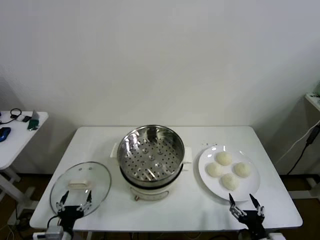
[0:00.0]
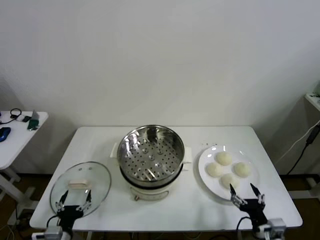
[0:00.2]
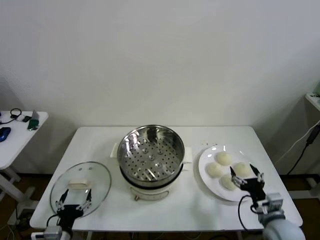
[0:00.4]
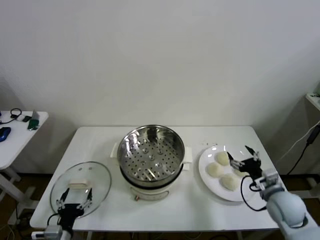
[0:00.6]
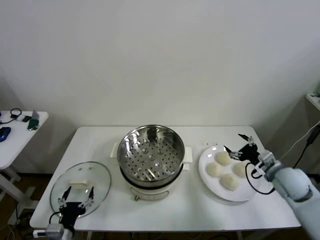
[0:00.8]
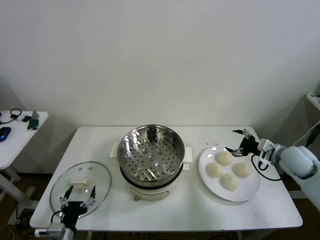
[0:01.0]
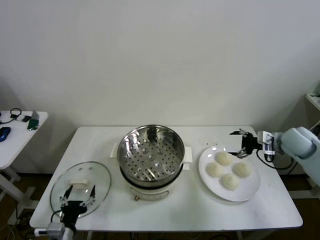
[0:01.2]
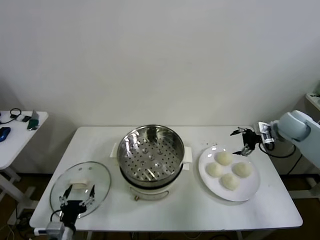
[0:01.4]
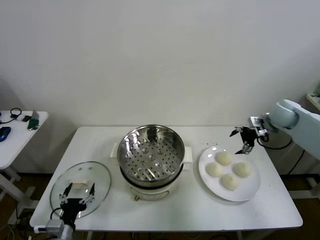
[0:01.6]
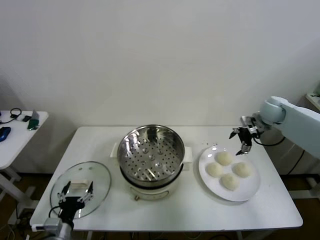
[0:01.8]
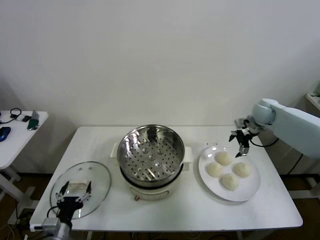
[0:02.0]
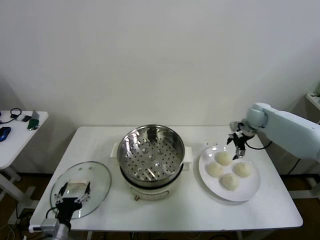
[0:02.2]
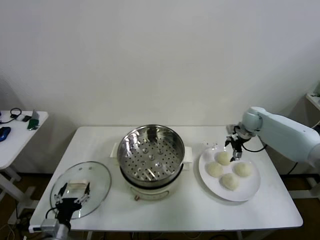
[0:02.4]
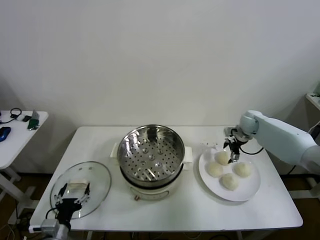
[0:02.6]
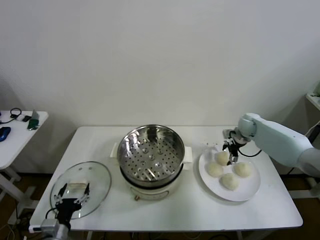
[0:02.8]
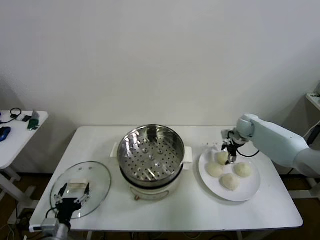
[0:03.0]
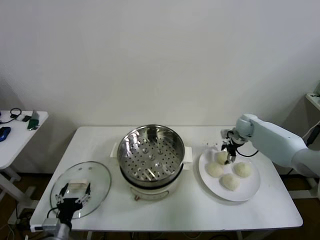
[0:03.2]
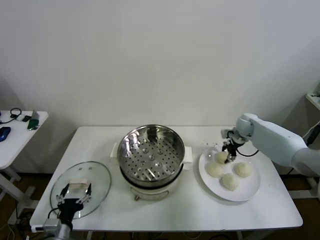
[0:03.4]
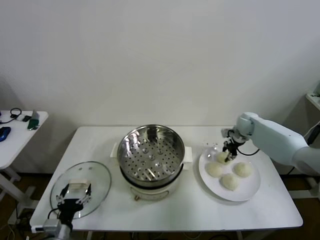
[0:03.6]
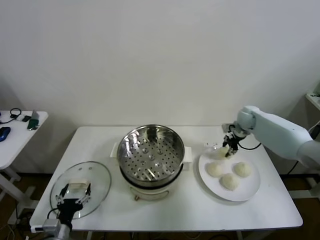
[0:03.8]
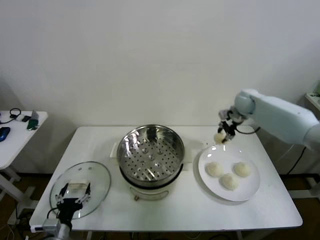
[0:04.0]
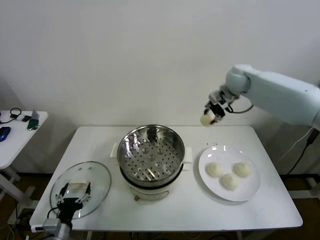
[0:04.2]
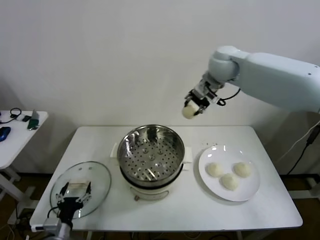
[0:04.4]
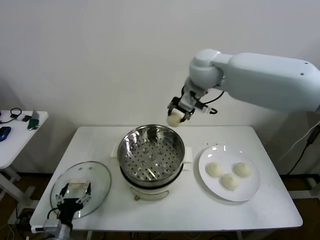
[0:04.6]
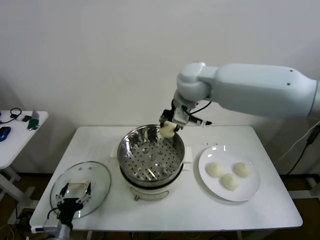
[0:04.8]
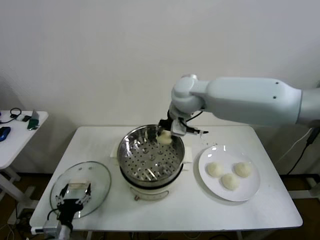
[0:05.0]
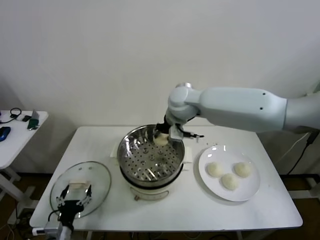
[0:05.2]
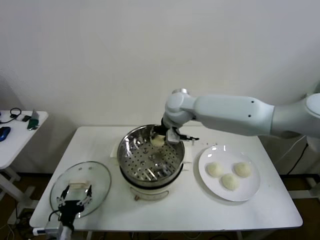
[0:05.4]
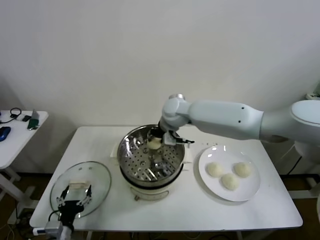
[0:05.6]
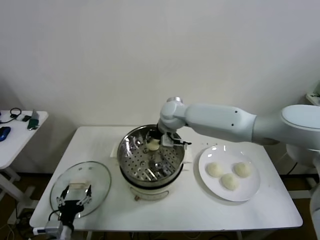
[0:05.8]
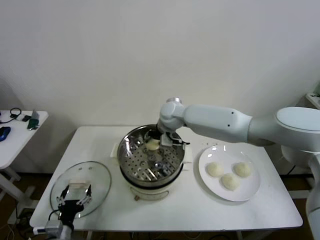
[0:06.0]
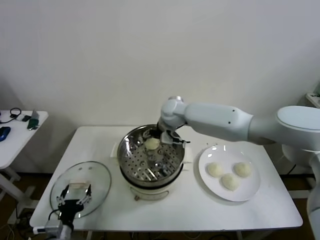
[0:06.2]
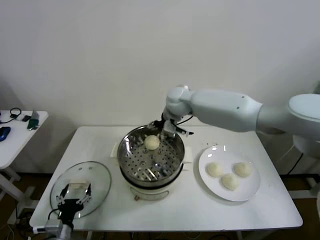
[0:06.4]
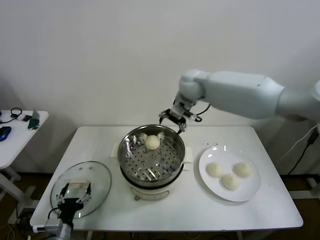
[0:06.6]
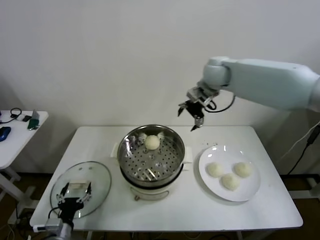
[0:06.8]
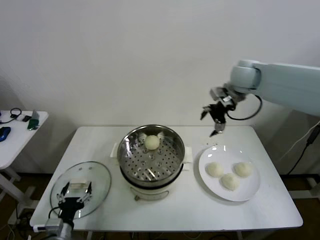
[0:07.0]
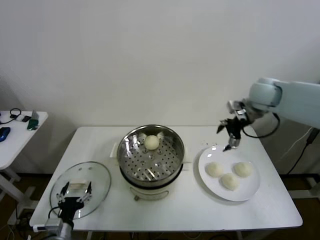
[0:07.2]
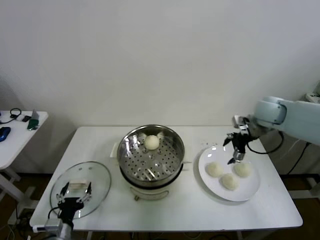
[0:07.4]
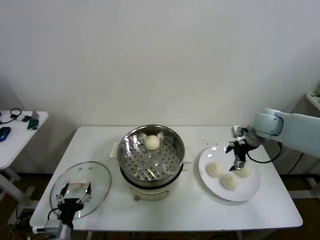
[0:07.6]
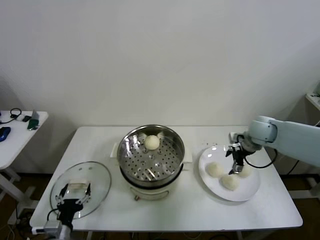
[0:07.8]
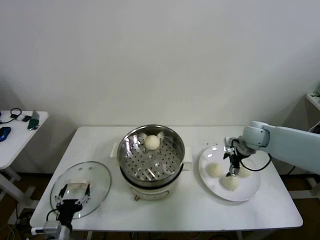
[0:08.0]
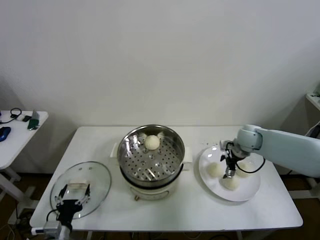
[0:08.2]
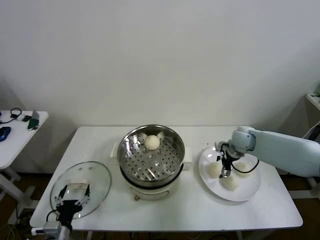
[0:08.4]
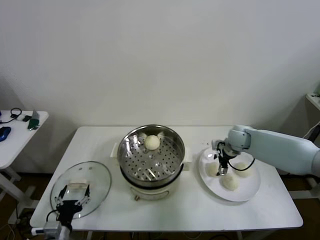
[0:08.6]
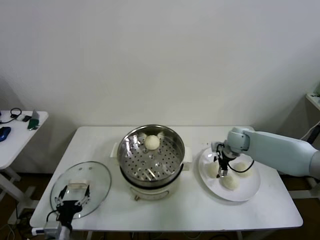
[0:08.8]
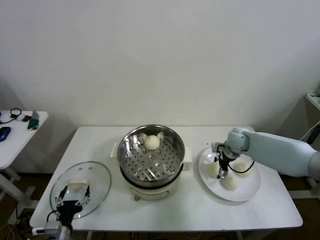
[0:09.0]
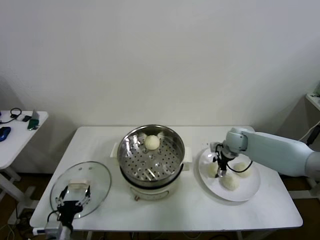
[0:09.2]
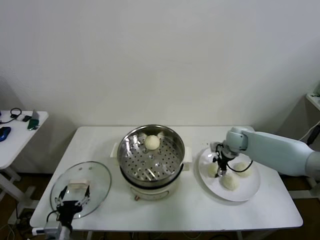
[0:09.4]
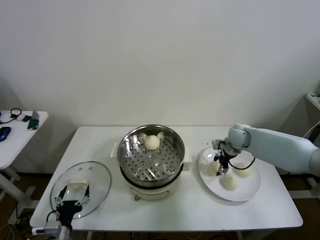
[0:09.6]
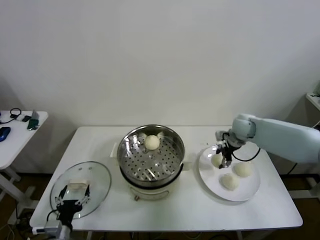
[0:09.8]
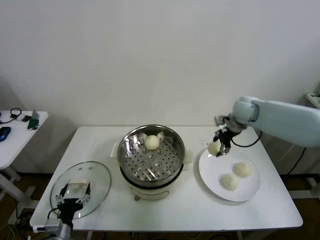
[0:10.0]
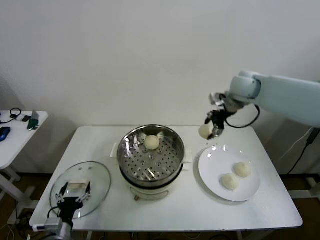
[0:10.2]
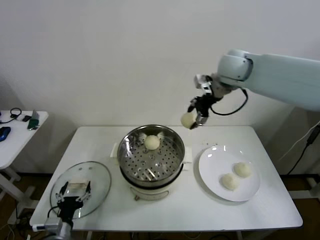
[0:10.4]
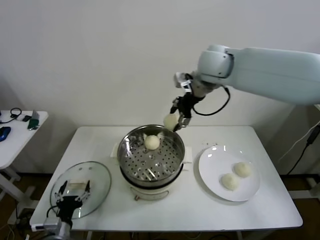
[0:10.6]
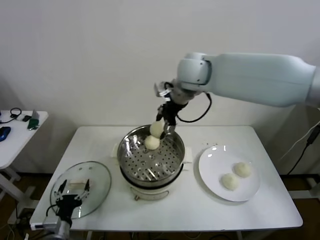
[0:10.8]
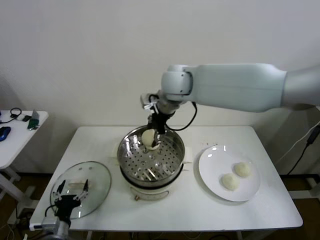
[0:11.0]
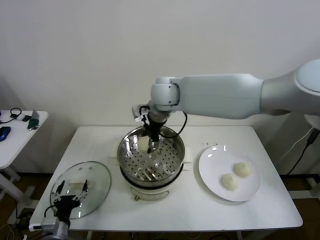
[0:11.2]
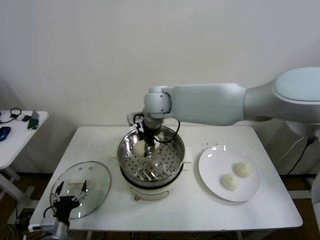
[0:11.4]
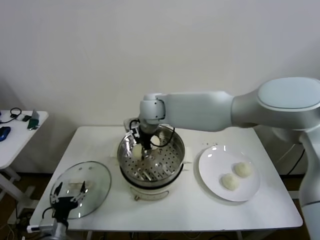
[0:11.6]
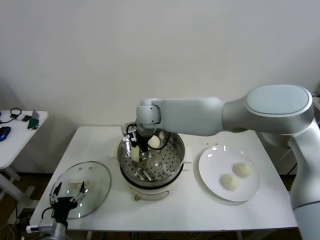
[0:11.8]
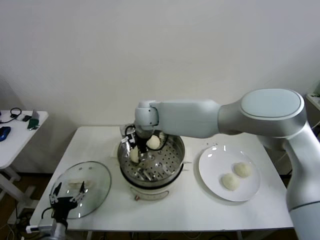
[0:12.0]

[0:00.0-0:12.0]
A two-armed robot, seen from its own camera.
Step, 0.0 to 3.4 s: Grasp the baozi in the plate with right gripper.
Step, 3.6 to 6.0 s: Place the baozi on the steamer with right gripper.
Step, 6.2 to 9.2 s: Grasp the baozi in the plate with right gripper.
Step, 9.4 to 12.0 s: Place the baozi on the steamer with right gripper.
1.6 to 3.0 s: The right gripper is displaced downward and forward by roughly 15 cm.
3.0 to 4.4 s: The right gripper is displaced upward and to the left by approximately 35 cm, and closes up.
4.4 to 6.0 s: The right gripper heads downward and to the left, covering roughly 20 cm, and opens up.
6.0 to 7.6 s: The right gripper is displaced to the right by approximately 30 cm, and opens up.
7.6 to 9.0 s: The right gripper is displaced downward and to the left by roughly 10 cm.
9.0 to 10.4 s: The right gripper heads upward, covering approximately 30 cm, and closes its fingers.
10.4 to 12.0 s: The right gripper heads to the left and downward, covering roughly 30 cm.

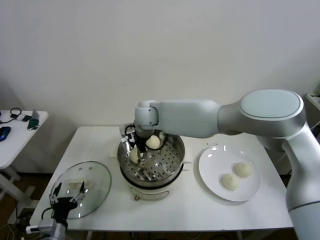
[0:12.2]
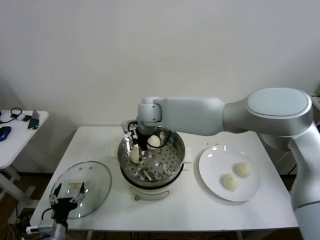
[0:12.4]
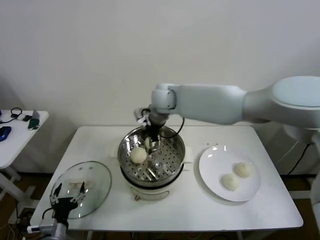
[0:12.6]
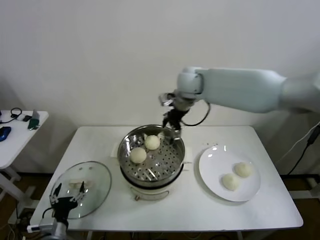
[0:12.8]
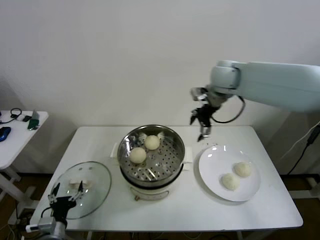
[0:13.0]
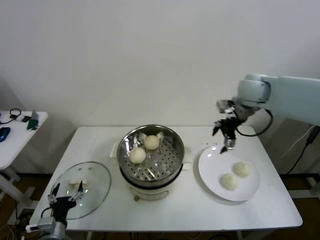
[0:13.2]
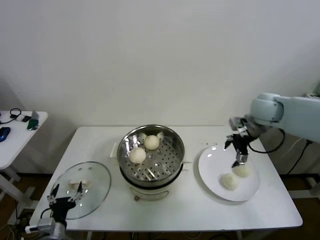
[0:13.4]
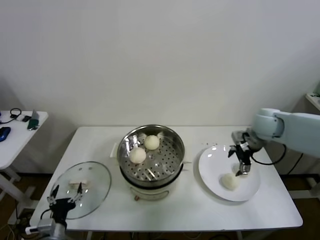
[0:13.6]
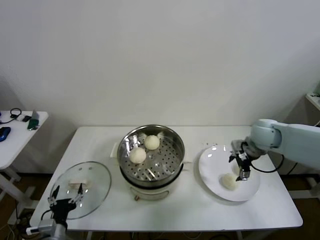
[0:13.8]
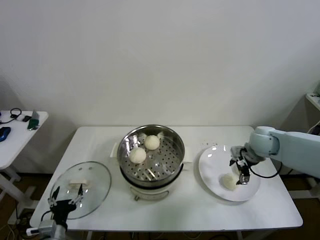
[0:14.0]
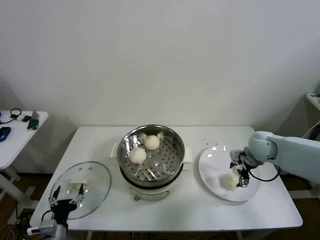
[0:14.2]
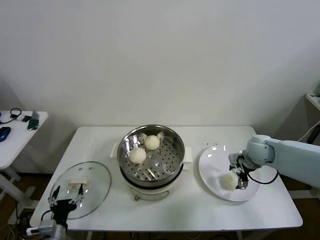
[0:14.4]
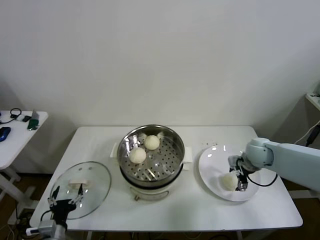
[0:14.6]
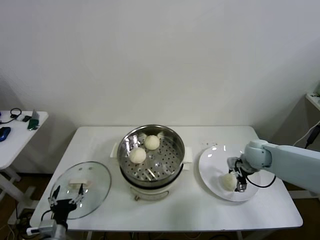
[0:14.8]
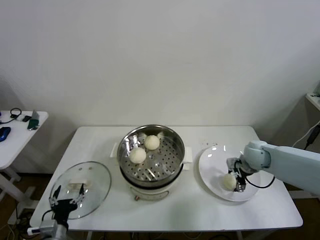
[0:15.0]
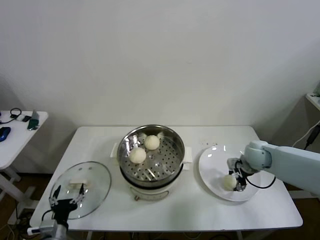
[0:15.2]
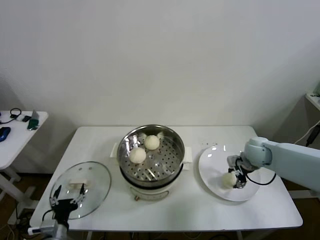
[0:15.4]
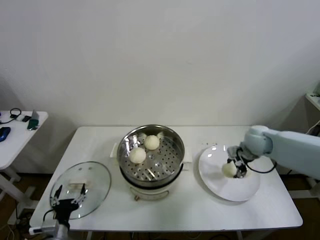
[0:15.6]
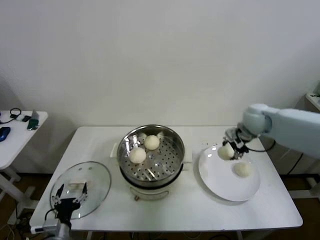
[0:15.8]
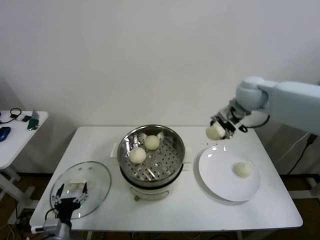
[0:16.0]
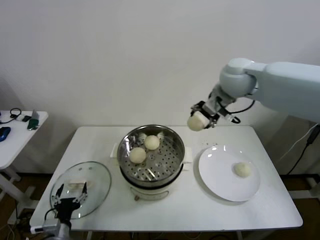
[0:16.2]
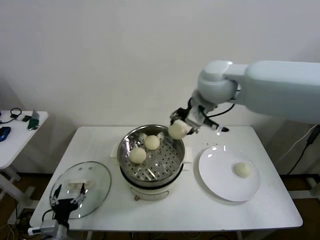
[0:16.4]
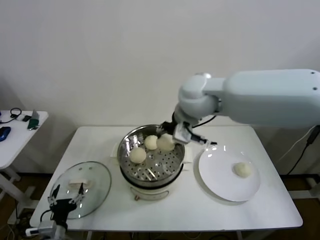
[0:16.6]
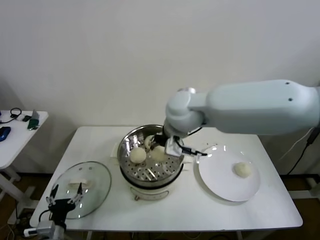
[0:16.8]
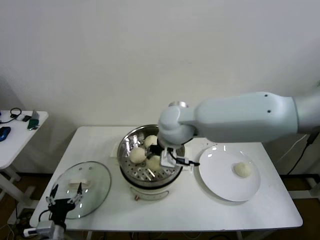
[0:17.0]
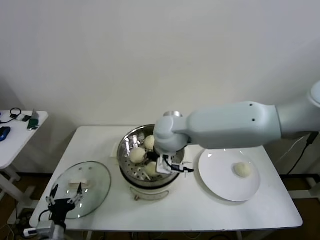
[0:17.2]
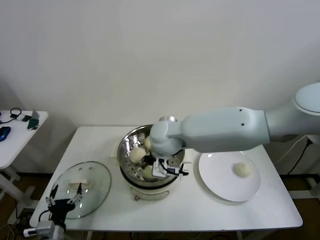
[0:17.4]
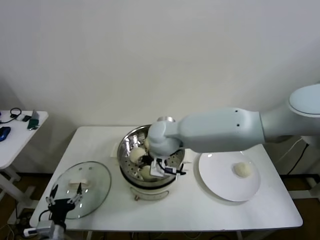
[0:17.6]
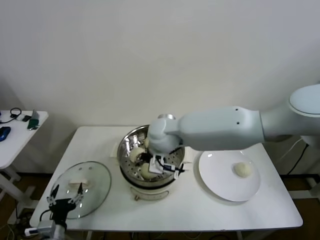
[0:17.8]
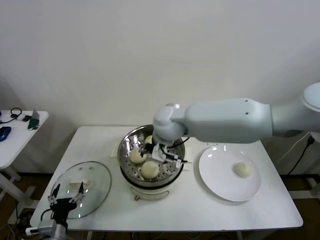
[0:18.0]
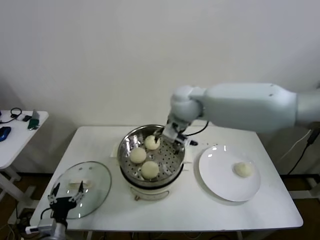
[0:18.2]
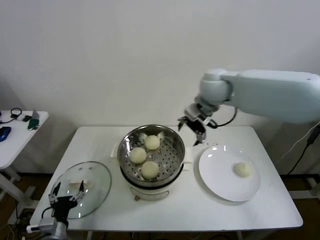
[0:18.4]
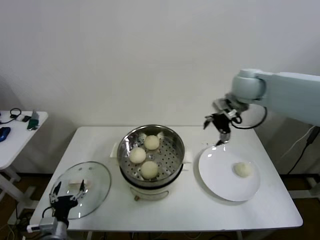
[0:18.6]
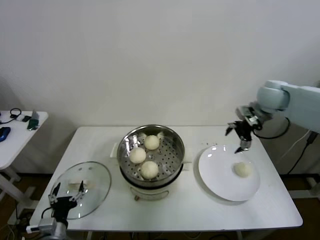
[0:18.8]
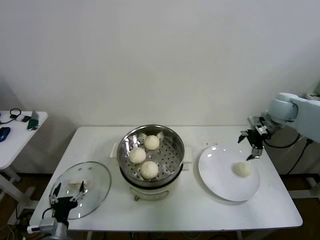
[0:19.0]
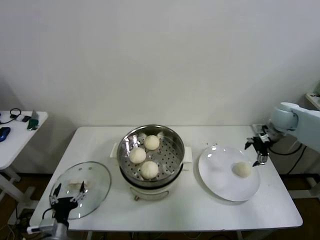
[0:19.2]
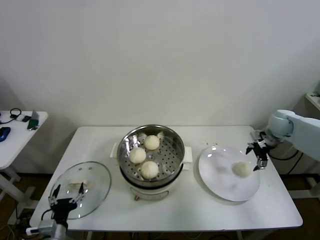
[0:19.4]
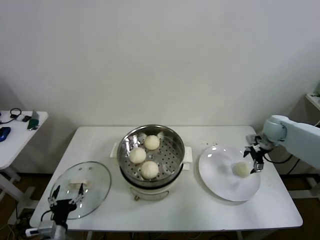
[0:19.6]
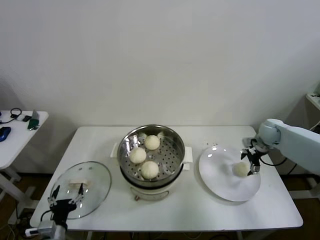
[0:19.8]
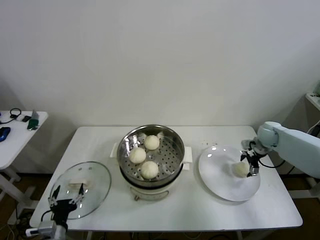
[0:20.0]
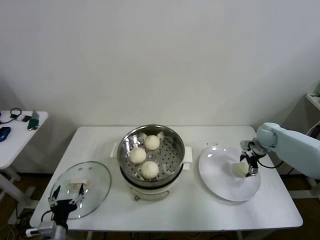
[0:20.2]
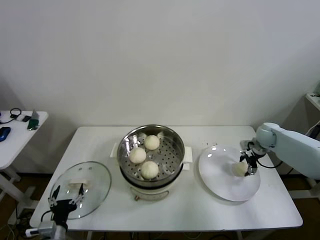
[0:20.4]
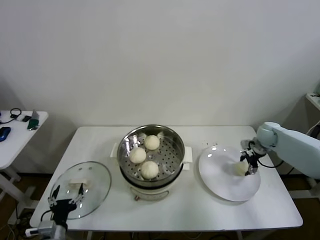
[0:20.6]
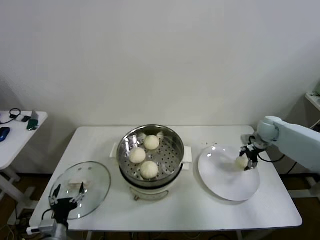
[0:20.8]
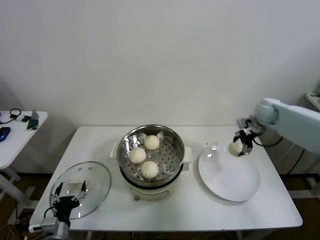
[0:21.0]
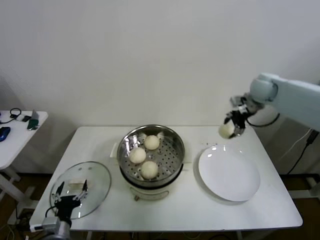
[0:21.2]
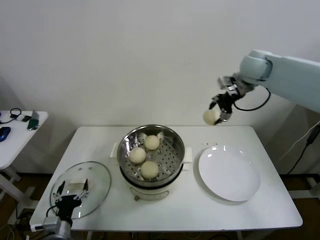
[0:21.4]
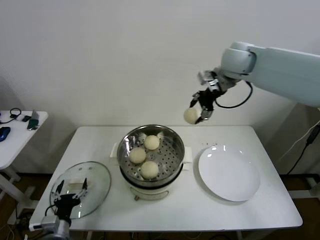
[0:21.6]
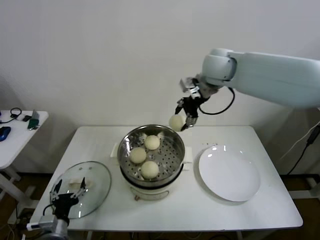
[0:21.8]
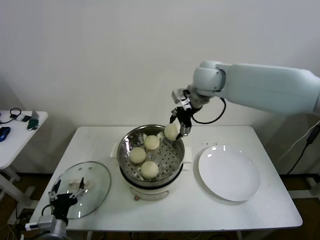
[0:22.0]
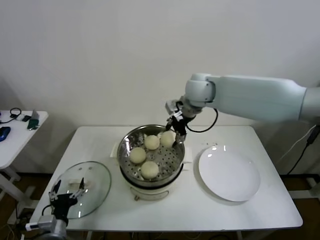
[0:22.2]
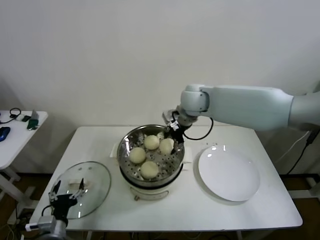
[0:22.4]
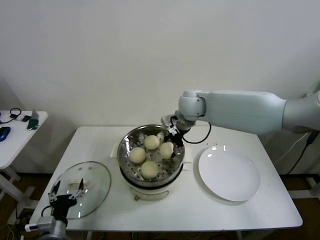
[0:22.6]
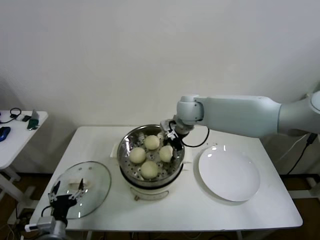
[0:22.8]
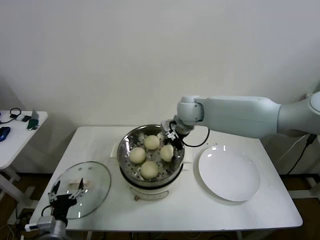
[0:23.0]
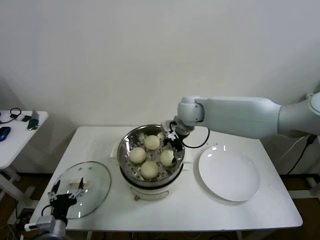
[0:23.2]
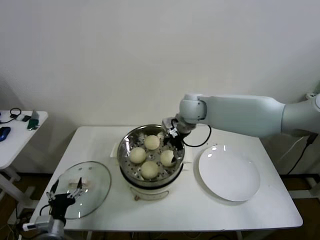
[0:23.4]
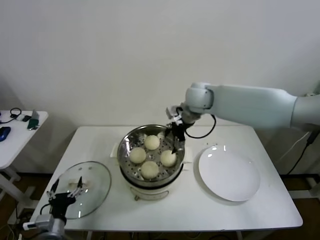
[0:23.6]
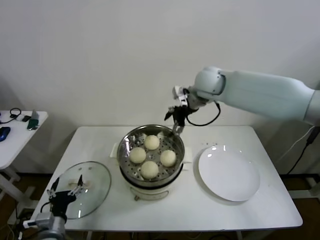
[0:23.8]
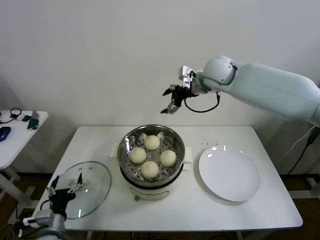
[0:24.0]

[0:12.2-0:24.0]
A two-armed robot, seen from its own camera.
Step, 12.2 to 15.0 s: Grasp the baozi in the plate with right gripper.
Step, 15.2 to 17.6 s: Place the baozi on the steamer with right gripper.
Step, 17.8 to 20.4 s: Grasp the baozi in the plate with right gripper.
Step, 20.6 to 23.0 s: Place the baozi on the steamer with right gripper.
12.2 to 13.6 s: The right gripper travels to the right by some 40 cm.
13.6 to 15.2 s: The right gripper goes some 10 cm downward, and closes up.
15.2 to 16.6 s: The right gripper shifts approximately 40 cm to the left and upward.
16.6 to 18.2 s: The right gripper moves forward, approximately 5 cm, reaches roughly 15 cm downward, then returns, and opens its fingers.
18.2 to 19.6 s: The right gripper travels to the right and downward by about 40 cm.
19.6 to 21.0 s: The right gripper moves upward, some 5 cm, and closes.
21.0 to 22.6 s: The right gripper goes some 30 cm to the left.
22.6 to 24.0 s: The right gripper moves upward and to the right, approximately 10 cm, and opens.
